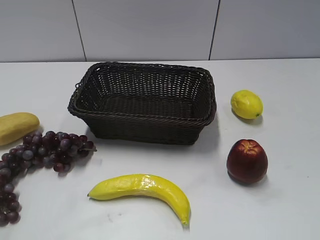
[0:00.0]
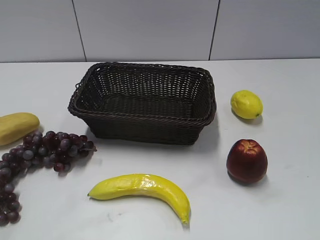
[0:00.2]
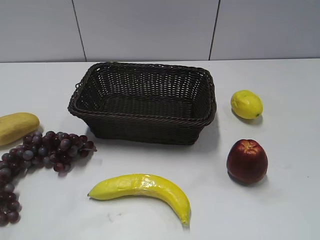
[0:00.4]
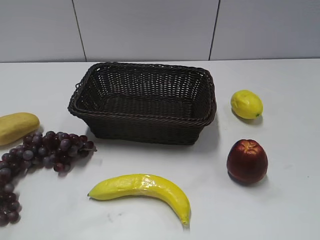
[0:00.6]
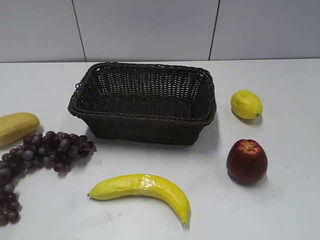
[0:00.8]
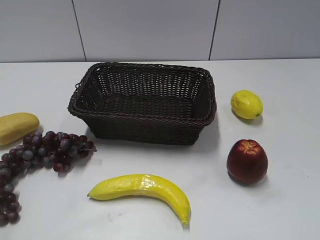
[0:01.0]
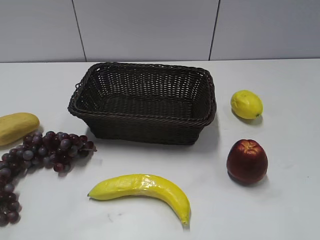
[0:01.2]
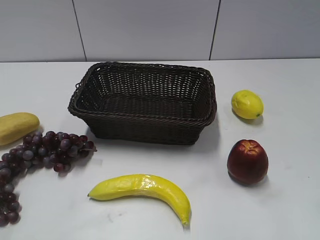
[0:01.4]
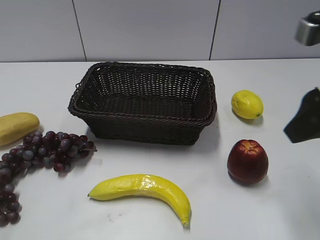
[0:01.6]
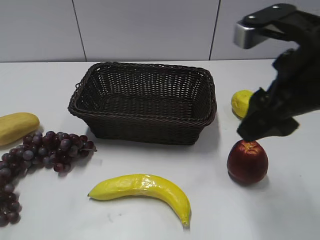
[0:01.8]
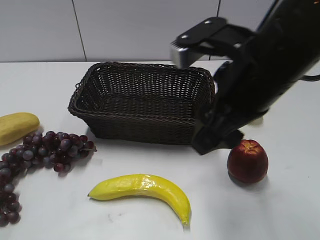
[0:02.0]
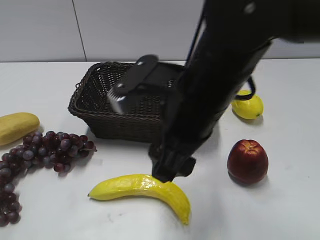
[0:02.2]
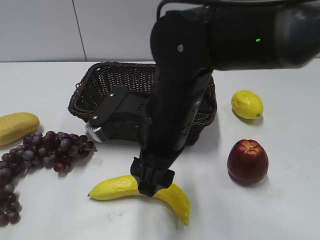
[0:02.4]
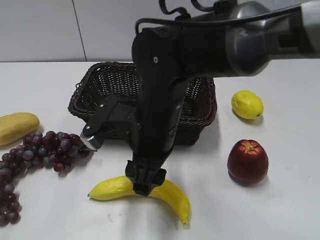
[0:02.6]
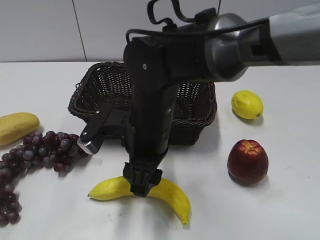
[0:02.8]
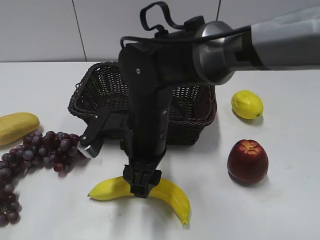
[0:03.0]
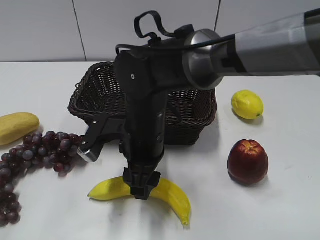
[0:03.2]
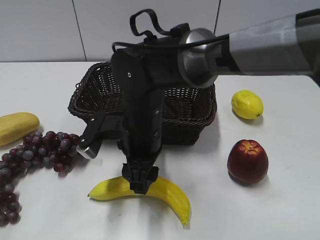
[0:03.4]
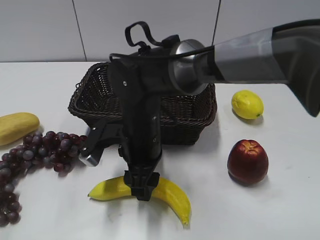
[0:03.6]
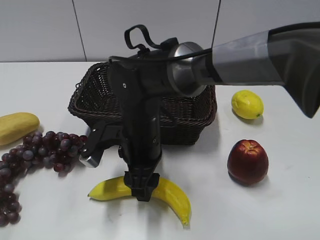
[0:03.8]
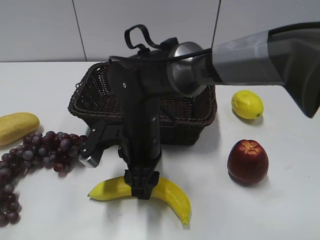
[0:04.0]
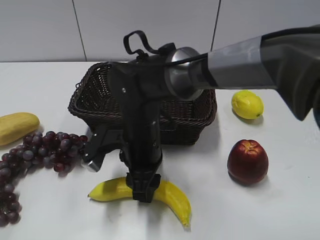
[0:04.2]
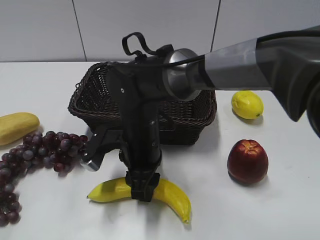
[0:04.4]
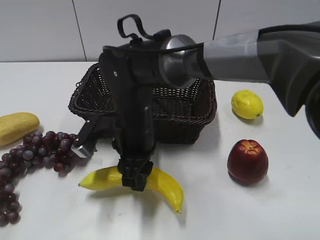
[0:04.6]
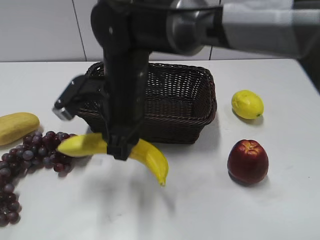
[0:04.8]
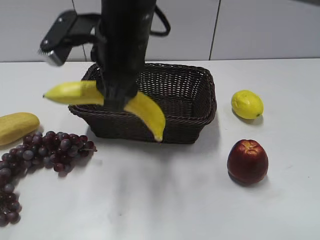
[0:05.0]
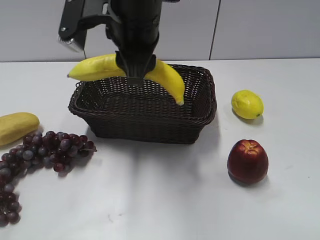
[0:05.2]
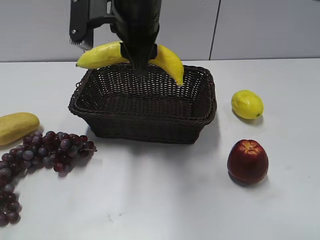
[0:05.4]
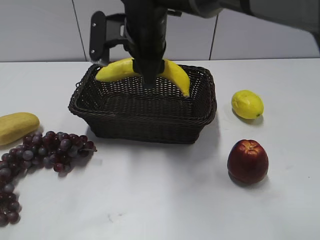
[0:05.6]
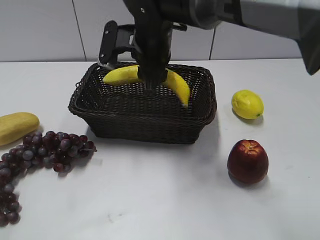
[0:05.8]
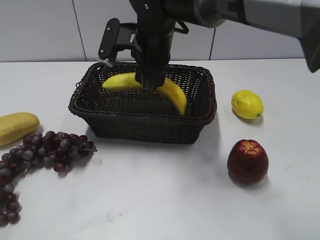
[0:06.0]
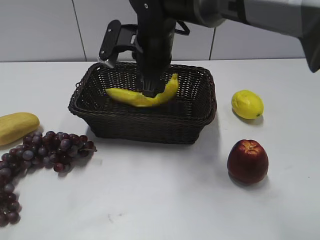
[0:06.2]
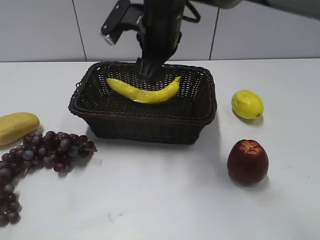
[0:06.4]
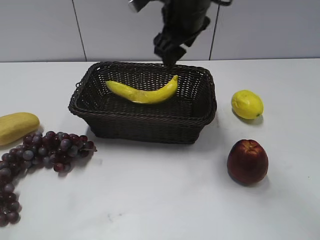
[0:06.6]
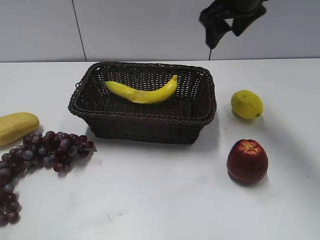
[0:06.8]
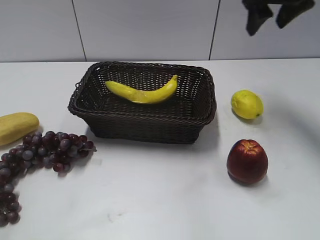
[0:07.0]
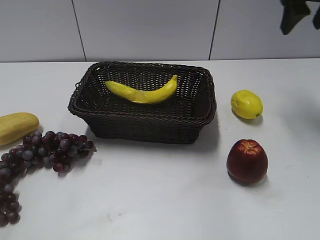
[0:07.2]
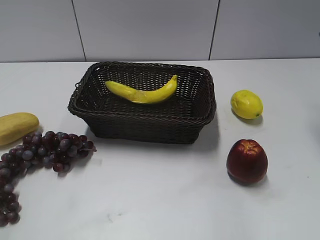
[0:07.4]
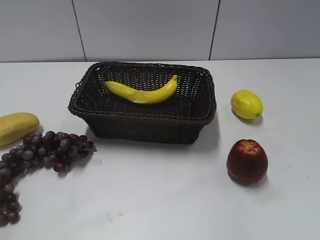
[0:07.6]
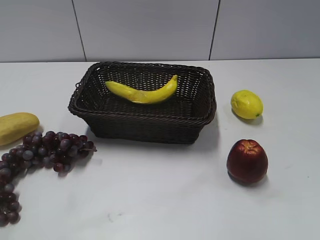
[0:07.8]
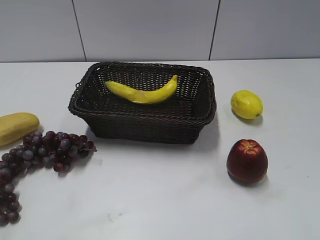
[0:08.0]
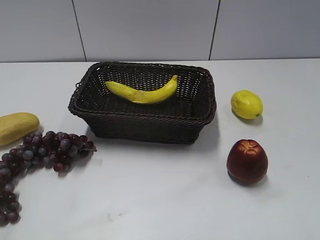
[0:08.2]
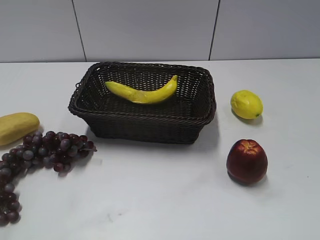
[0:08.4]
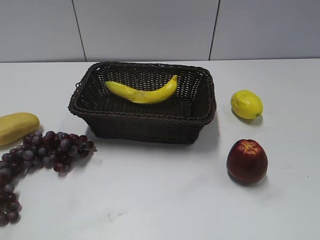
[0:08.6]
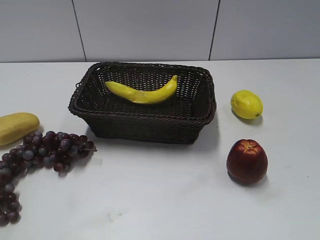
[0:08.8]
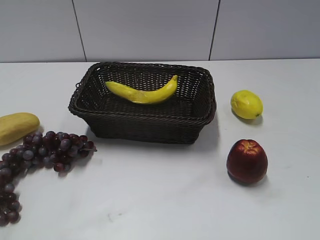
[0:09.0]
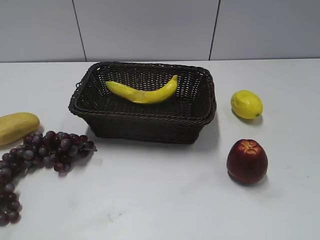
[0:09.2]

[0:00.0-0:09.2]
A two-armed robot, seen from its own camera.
Step, 0:01.6 to 0:04.2: Grasp the banana with right gripper.
Step, 0:04.4 to 0:06.2: Place the banana in the basket with right gripper.
0:01.6 to 0:03.0: The left gripper closes its fingers, while the right gripper heads to the left and downward, covering some 30 cm.
0:03.0 to 0:04.6: The right gripper closes.
0:04.6 to 0:06.2: The right gripper travels forward and upward by approximately 15 cm, and opens up.
0:06.2 to 0:07.6: The right gripper travels to the right and upward by approximately 35 cm.
